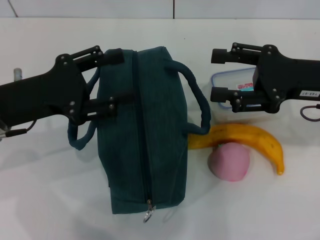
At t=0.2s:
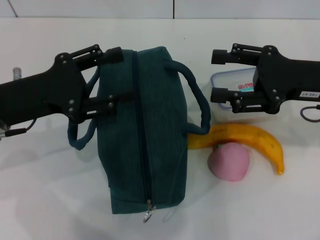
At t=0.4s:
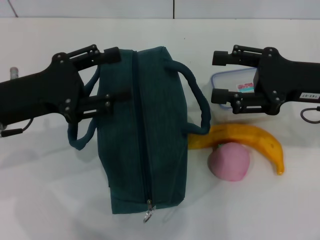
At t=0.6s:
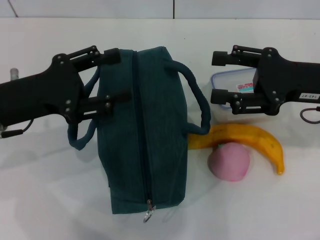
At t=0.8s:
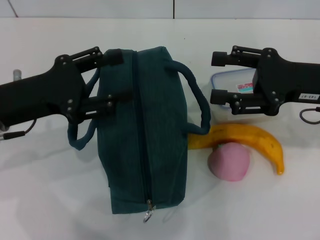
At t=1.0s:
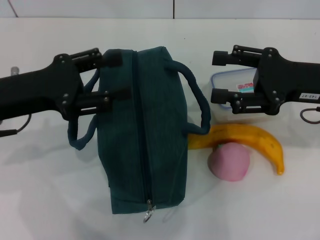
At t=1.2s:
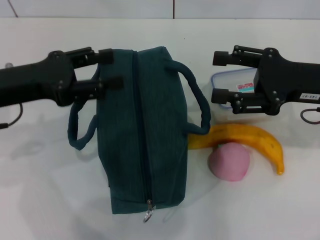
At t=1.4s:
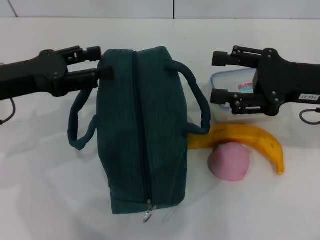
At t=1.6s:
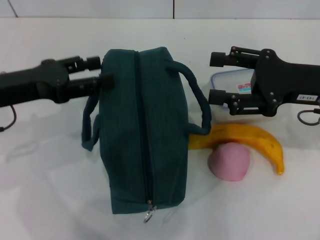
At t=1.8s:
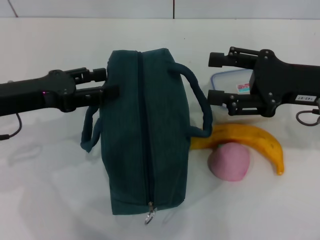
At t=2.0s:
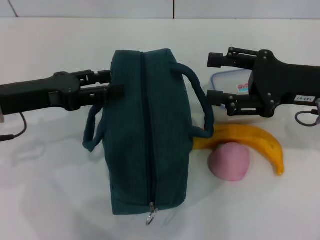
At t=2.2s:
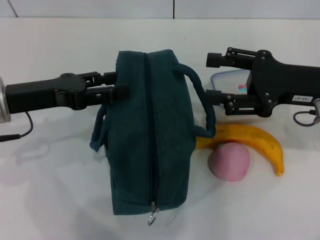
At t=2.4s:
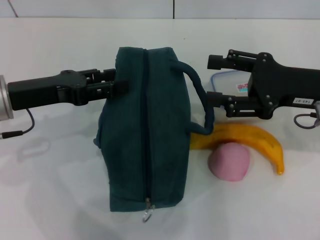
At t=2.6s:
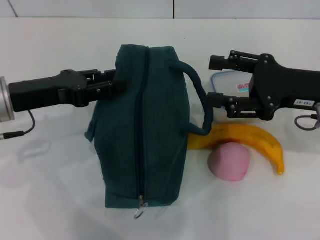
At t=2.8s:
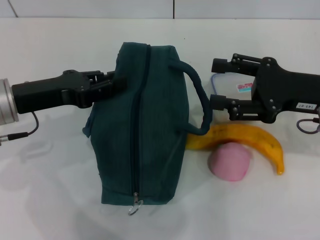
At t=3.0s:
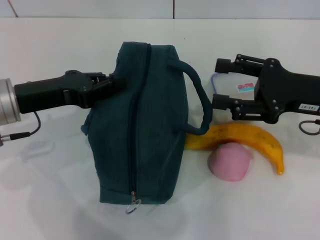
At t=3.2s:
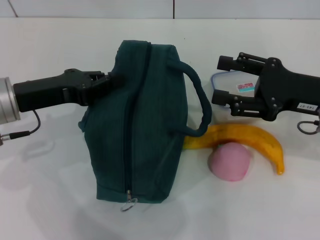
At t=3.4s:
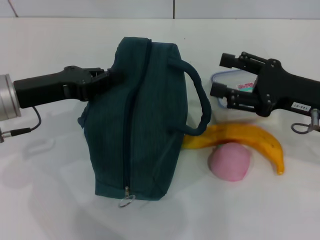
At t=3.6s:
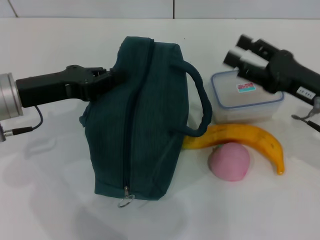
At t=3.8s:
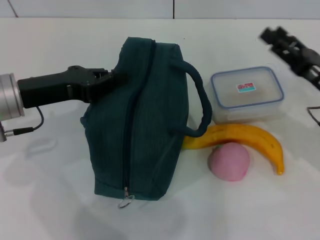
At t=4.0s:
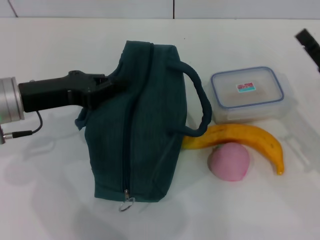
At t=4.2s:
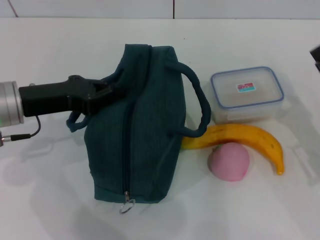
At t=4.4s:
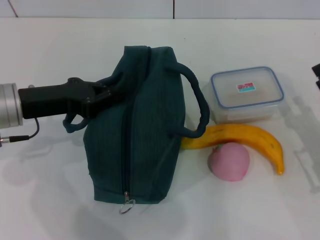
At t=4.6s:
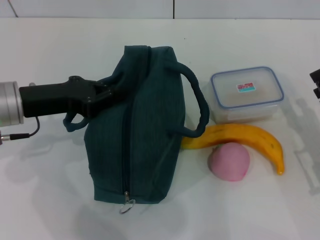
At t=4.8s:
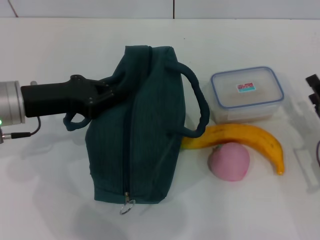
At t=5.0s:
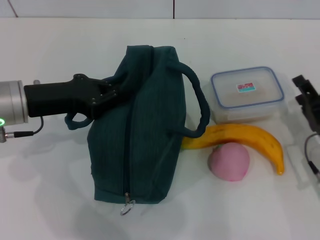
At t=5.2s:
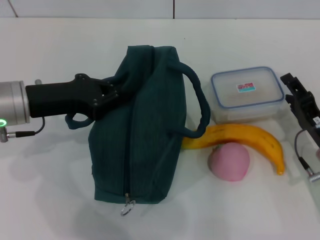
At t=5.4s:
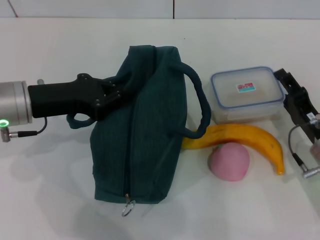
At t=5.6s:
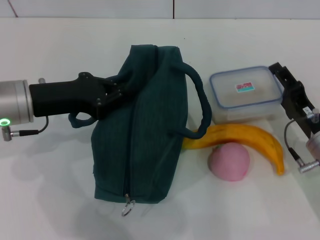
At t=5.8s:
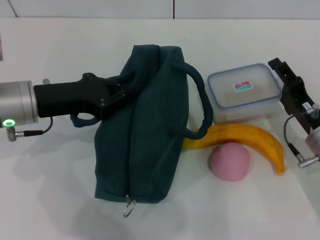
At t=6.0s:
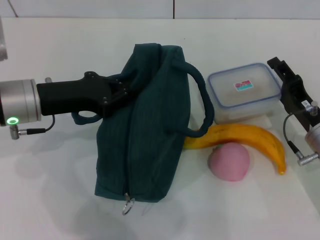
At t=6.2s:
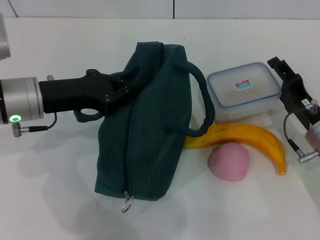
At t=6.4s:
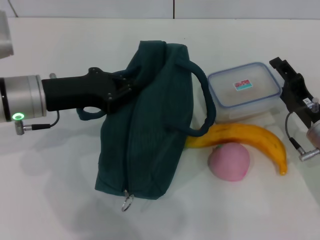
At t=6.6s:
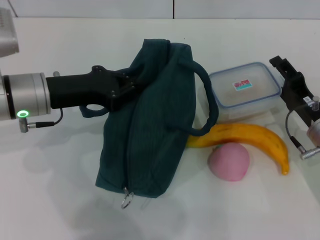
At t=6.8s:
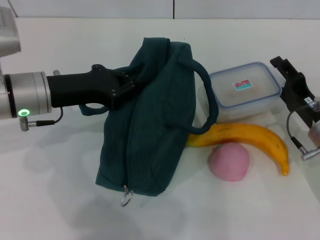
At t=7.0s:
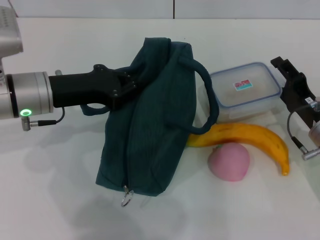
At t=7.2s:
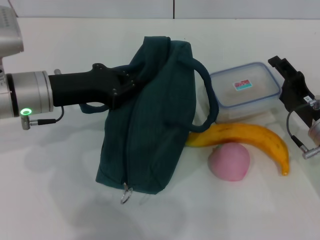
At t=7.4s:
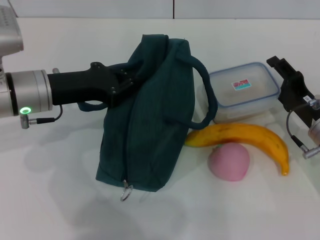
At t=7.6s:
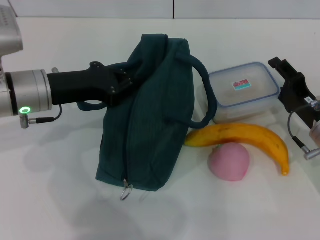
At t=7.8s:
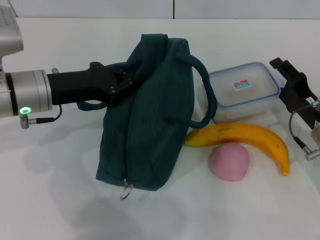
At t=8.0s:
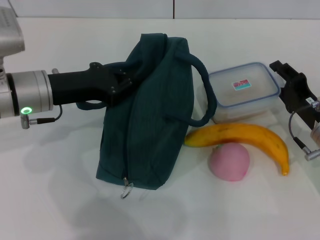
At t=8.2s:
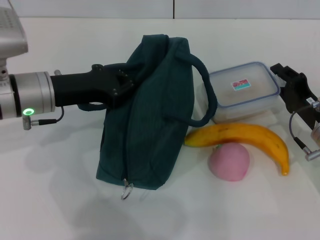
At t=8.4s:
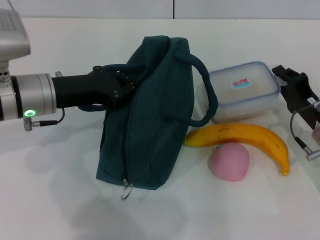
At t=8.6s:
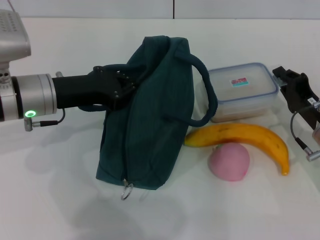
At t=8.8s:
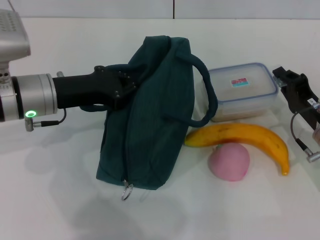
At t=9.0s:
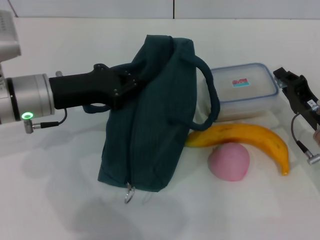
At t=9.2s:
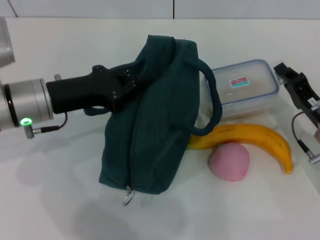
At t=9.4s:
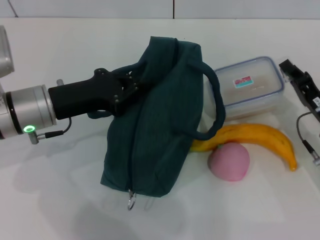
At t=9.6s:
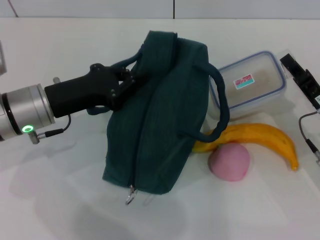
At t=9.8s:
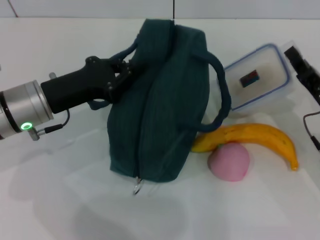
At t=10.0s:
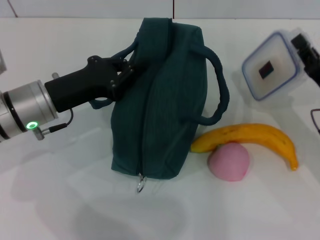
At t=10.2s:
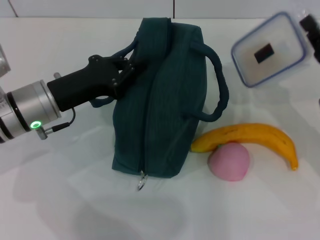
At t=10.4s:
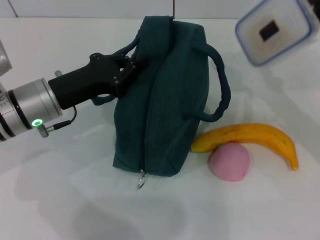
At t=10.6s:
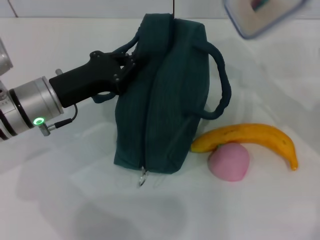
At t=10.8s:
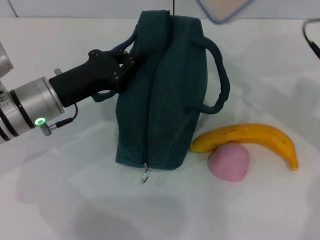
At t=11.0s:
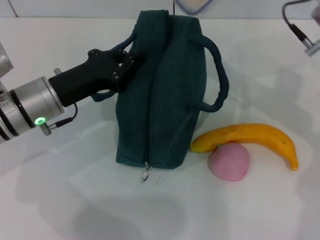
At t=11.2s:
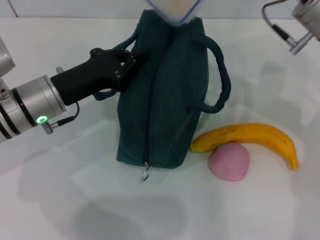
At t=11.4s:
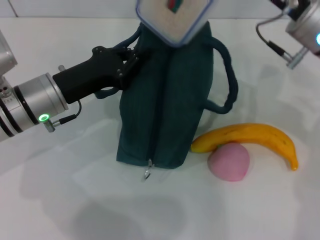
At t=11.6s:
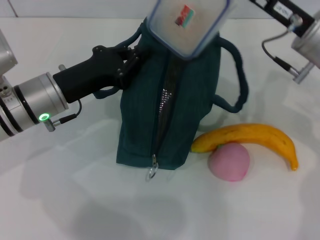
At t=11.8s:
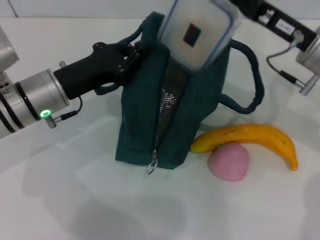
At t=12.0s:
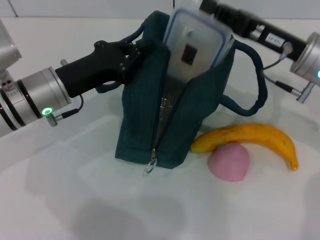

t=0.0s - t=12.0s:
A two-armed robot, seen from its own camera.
Step, t=0.0s - t=3.4s: Hold the lunch bag with your left hand.
Step, t=3.6s - t=8.8s: Pick up the lunch box with your right hand.
t=1.6s - t=3.0s: The left gripper closes its fingers.
t=3.0s - t=4.4s: The right gripper heads downward and backward, covering some 15 cm.
t=4.4s - t=6.0s: The right gripper moves some 5 cm.
t=6.0s - t=7.6s: The grippers stay close to where they were, moving slightly.
t=7.6s - t=9.0s: The right gripper closes up.
t=9.0s - t=10.4s: The right gripper heads upward, covering approximately 10 cm.
t=10.4s - t=12.0s: The right gripper travels to the left and forward by roughly 10 cm.

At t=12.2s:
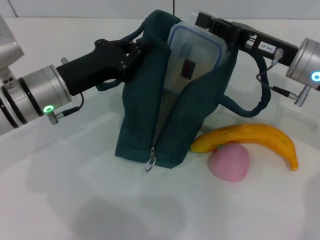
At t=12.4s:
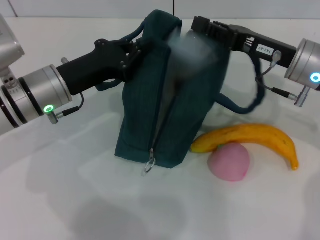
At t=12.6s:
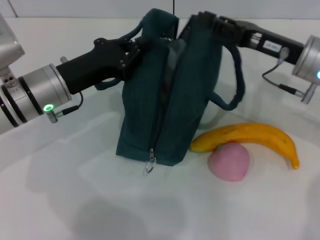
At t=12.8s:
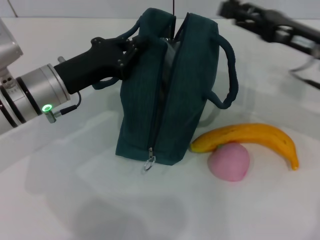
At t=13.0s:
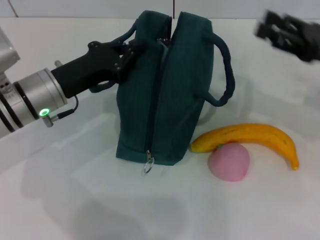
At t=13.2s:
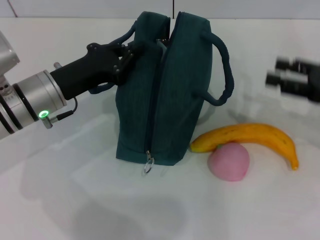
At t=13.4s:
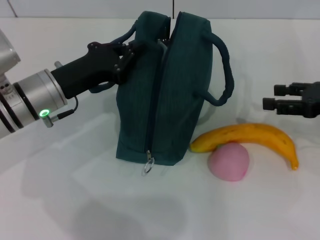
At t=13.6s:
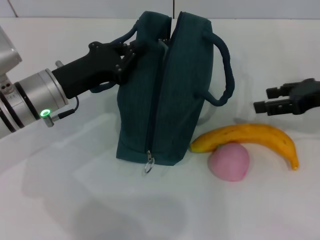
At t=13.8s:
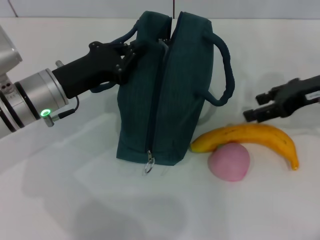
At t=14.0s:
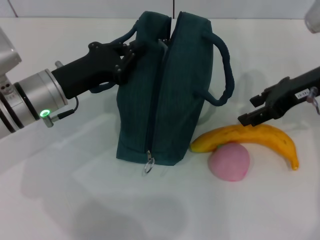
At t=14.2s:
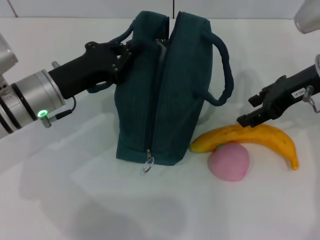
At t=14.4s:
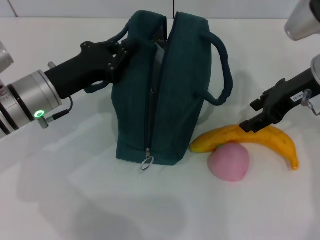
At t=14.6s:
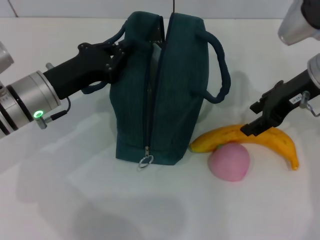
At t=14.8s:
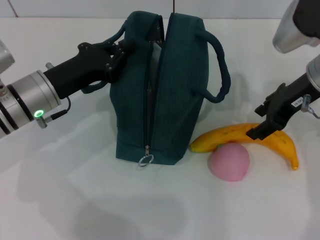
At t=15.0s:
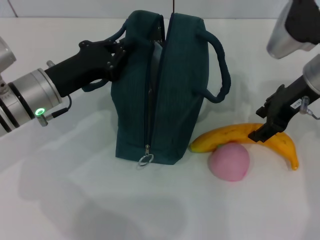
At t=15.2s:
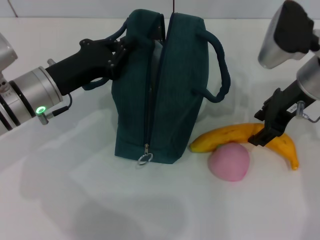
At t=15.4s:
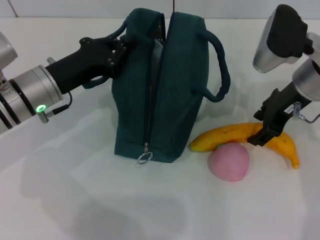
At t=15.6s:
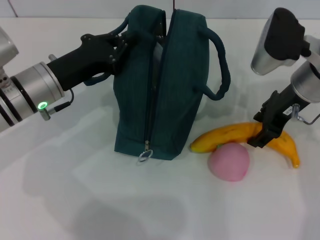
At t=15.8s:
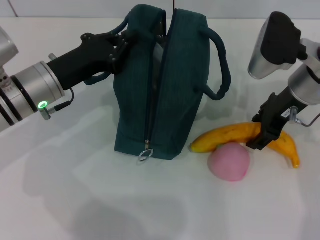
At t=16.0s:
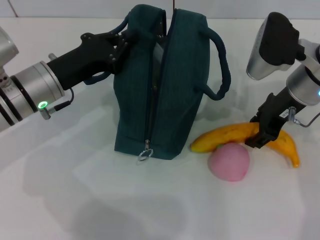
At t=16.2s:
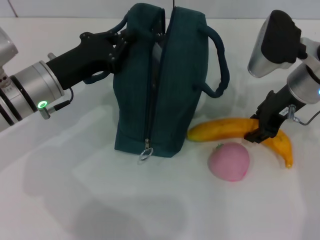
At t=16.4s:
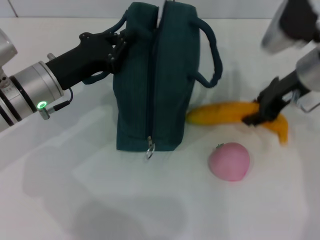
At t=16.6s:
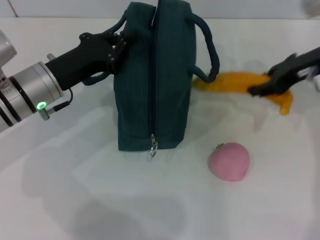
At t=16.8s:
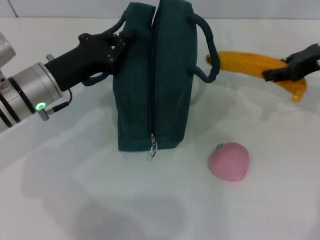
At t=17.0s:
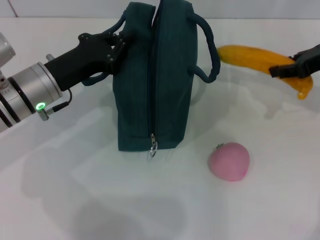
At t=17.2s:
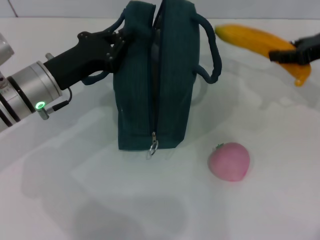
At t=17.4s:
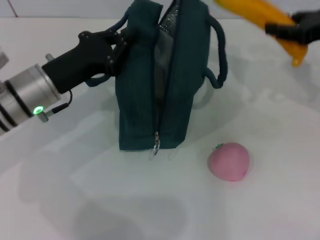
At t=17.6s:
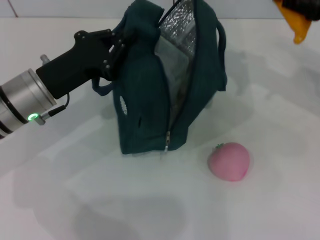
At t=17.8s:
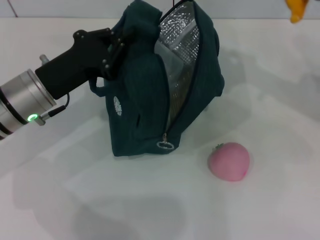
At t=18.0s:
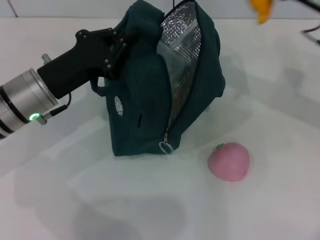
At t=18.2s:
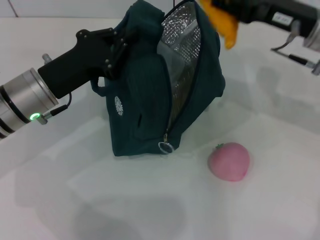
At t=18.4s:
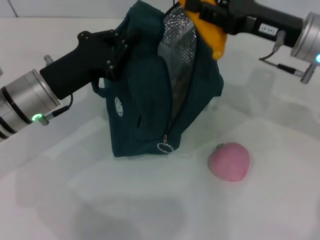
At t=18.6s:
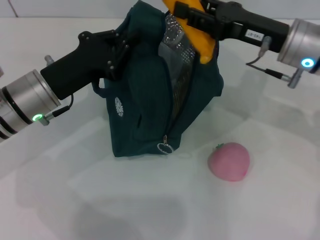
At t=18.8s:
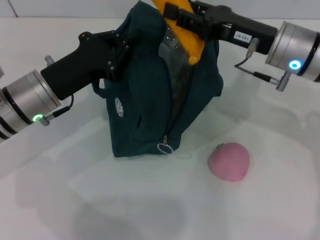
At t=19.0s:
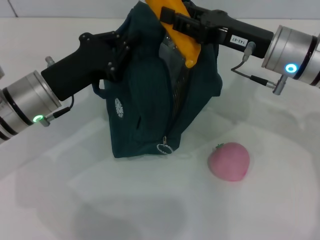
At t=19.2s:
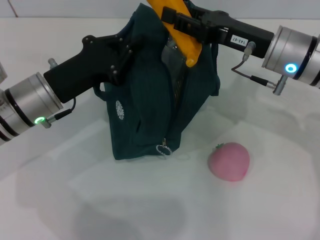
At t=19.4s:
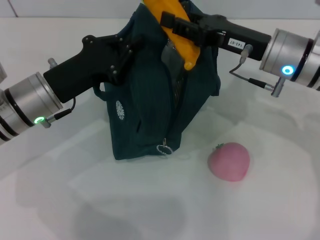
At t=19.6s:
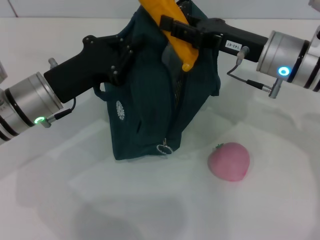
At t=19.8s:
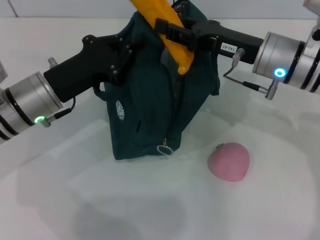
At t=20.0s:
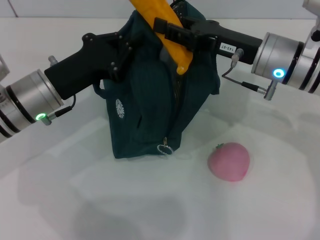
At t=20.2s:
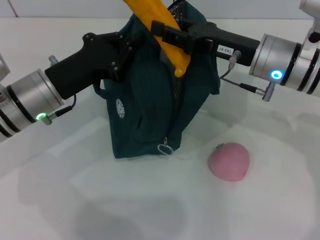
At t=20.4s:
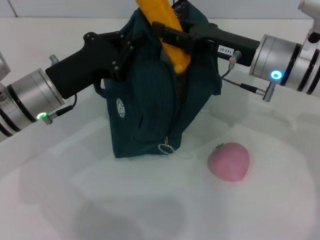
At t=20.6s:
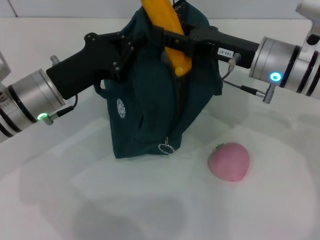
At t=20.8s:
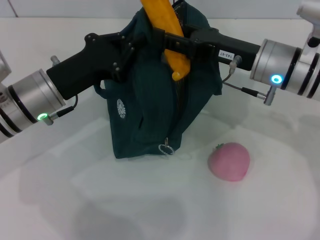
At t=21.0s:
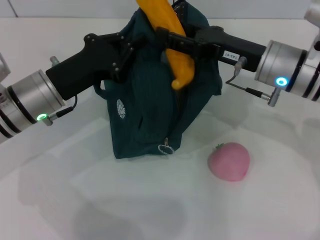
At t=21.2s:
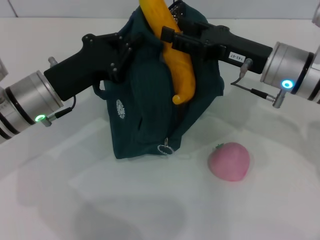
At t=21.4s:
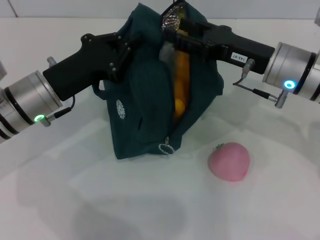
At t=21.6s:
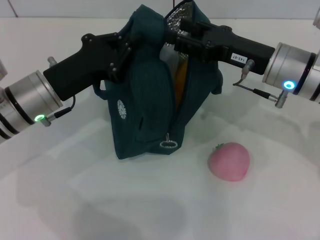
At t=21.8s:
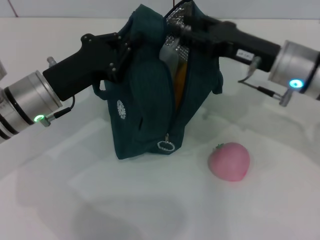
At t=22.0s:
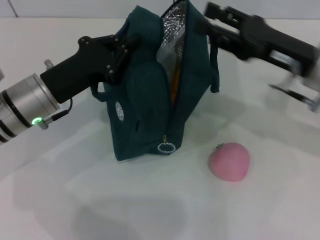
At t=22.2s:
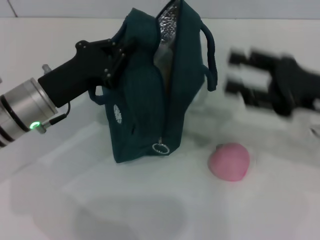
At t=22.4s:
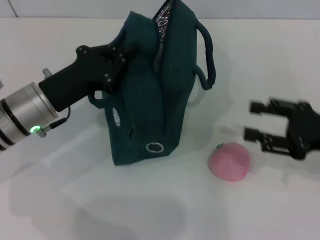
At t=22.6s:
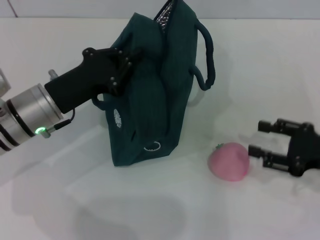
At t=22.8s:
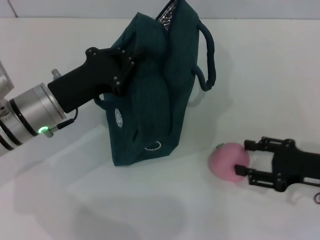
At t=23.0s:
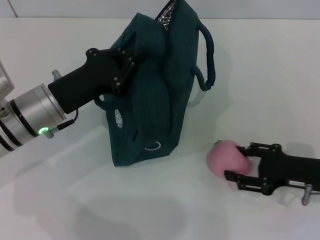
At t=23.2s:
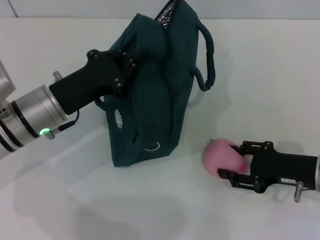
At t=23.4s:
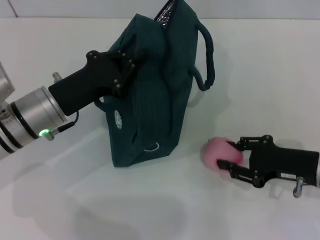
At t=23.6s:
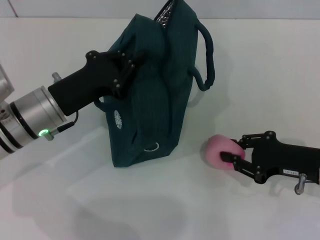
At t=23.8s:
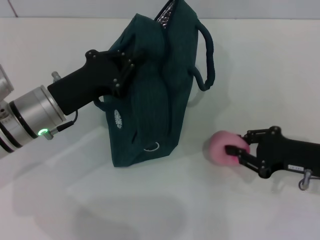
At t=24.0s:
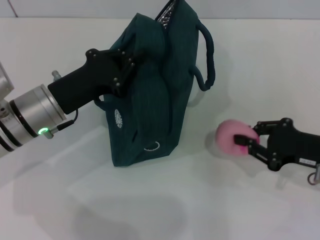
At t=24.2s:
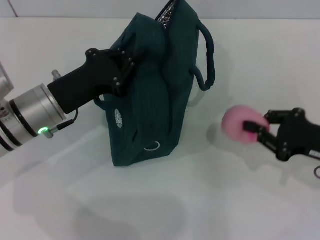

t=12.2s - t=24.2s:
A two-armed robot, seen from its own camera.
Step, t=12.8s - t=16.0s: Take the banana with your right hand.
Step, t=16.2s - t=21.6s: Put the banana into the lunch bag with your right hand.
Step, t=21.8s - t=23.4s: Grab the peach with your right hand.
t=12.2s - t=13.8s: The right gripper is displaced to the right by some 5 cm, and opens its fingers.
t=13.8s - t=15.2s: The right gripper heads to the left, covering some 5 cm.
t=15.2s - t=16.6s: The right gripper moves approximately 5 cm.
t=16.6s - t=18.2s: The right gripper goes to the right and returns, approximately 5 cm each way.
t=18.2s - t=19.8s: The right gripper moves to the left, some 5 cm.
t=19.8s - t=21.2s: The grippers stay close to where they were, moving slightly.
t=21.2s - t=22.6s: The right gripper travels to the right, backward and downward by some 20 cm.
t=22.6s - t=24.2s: The right gripper closes up.
